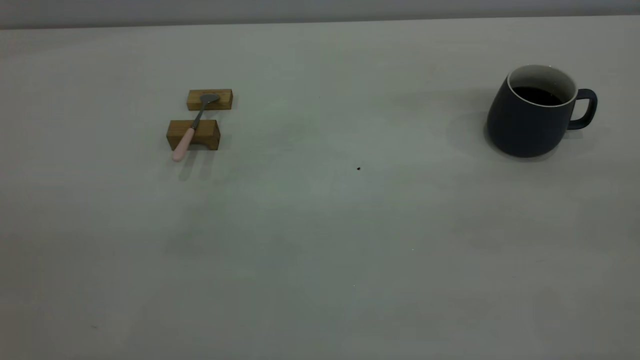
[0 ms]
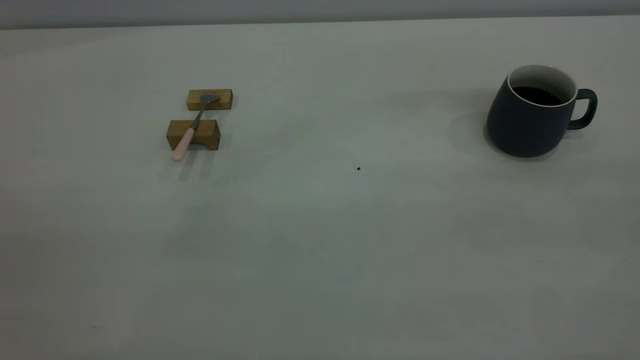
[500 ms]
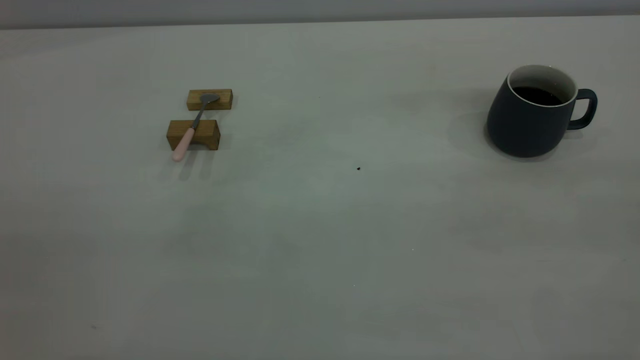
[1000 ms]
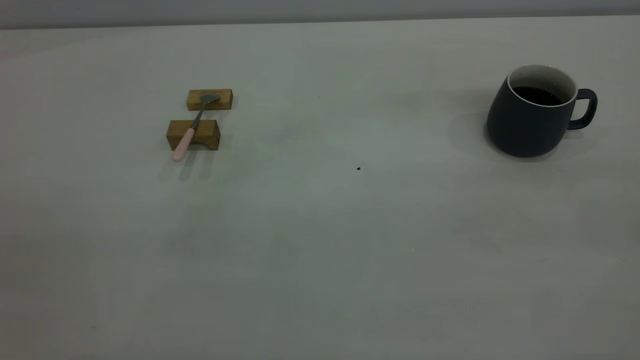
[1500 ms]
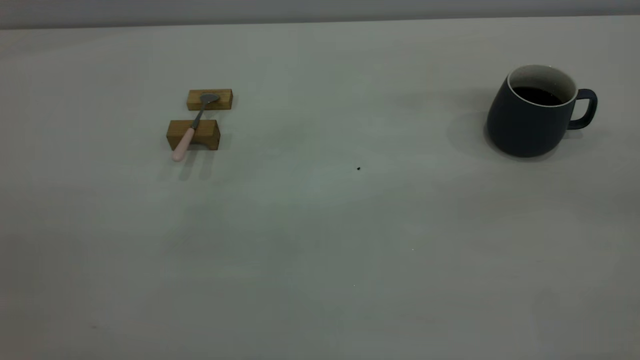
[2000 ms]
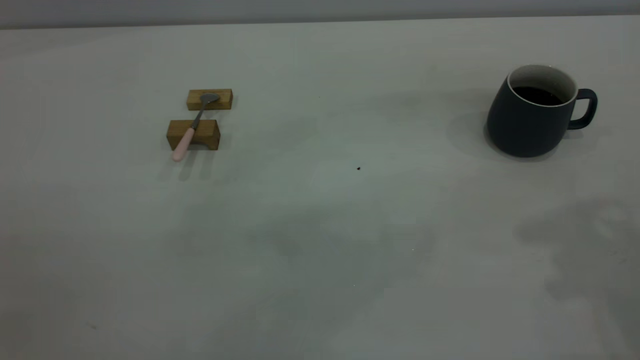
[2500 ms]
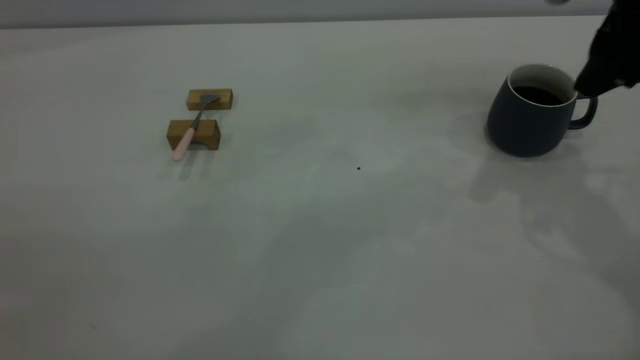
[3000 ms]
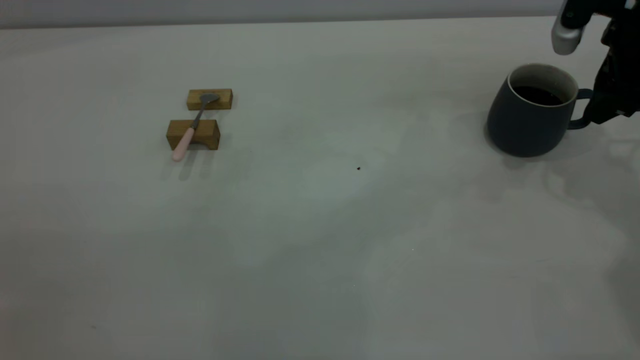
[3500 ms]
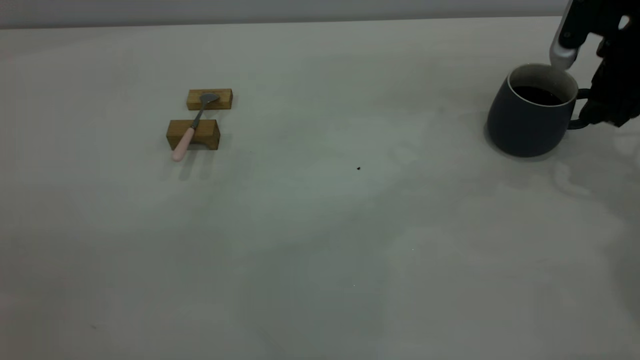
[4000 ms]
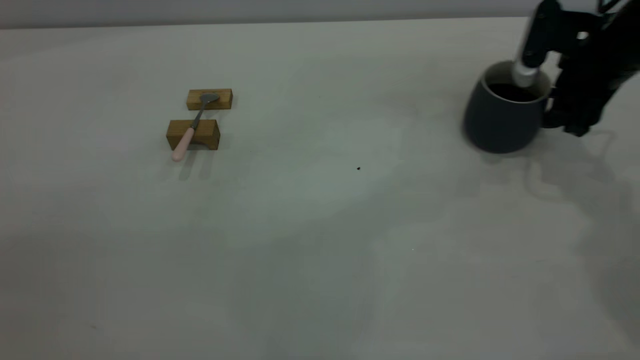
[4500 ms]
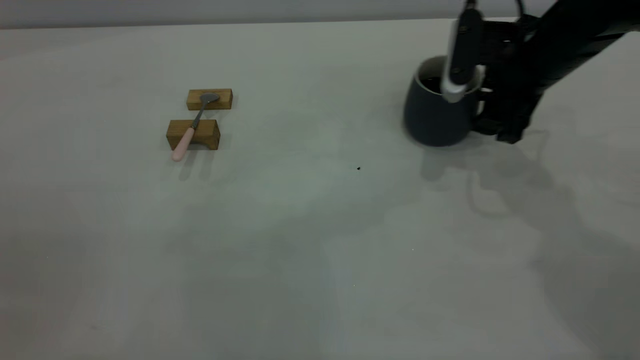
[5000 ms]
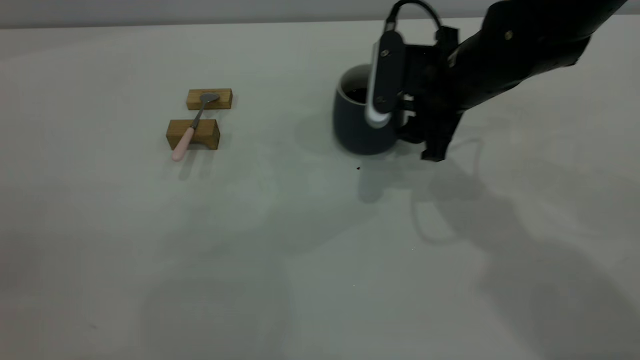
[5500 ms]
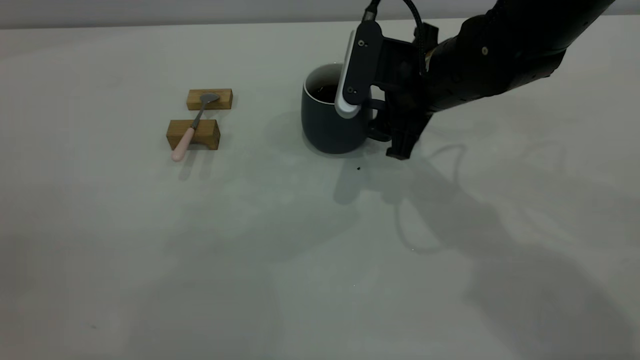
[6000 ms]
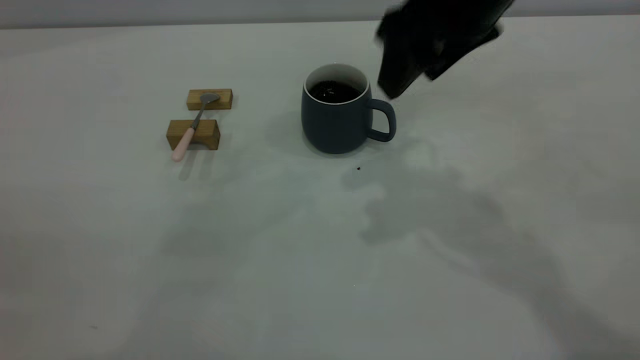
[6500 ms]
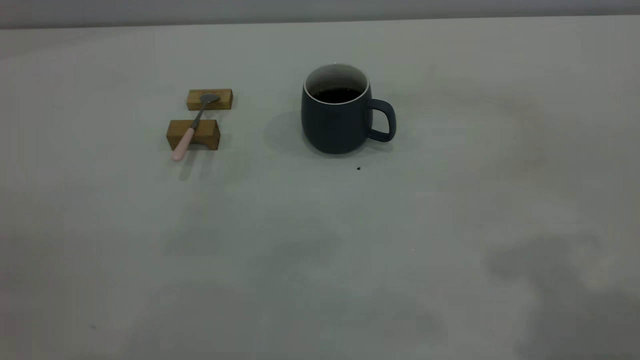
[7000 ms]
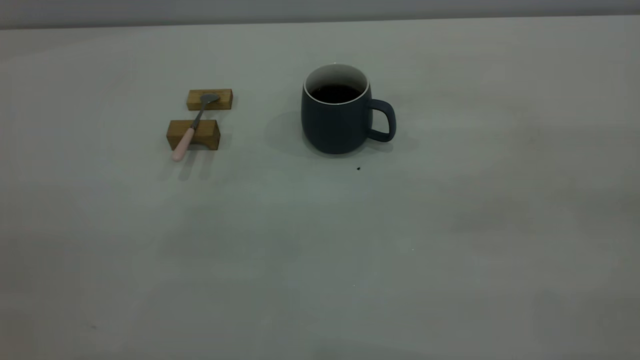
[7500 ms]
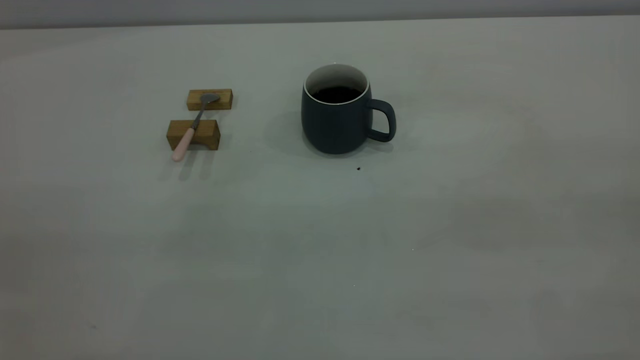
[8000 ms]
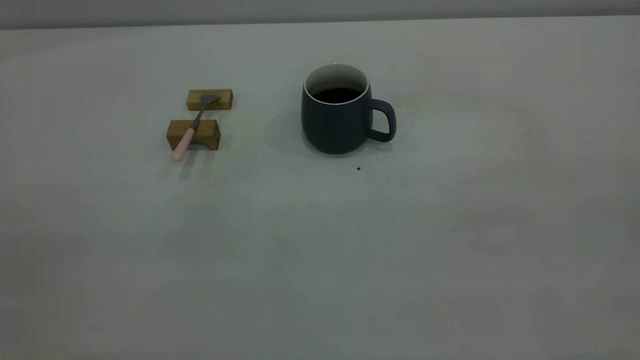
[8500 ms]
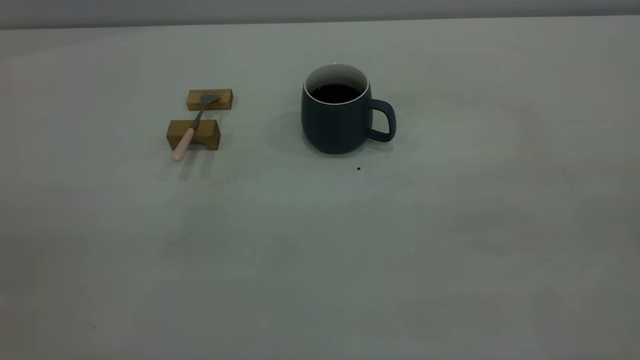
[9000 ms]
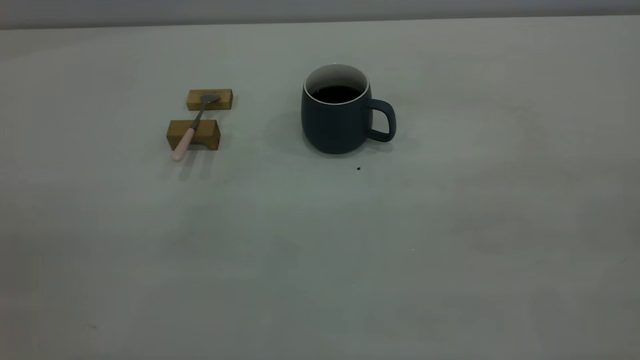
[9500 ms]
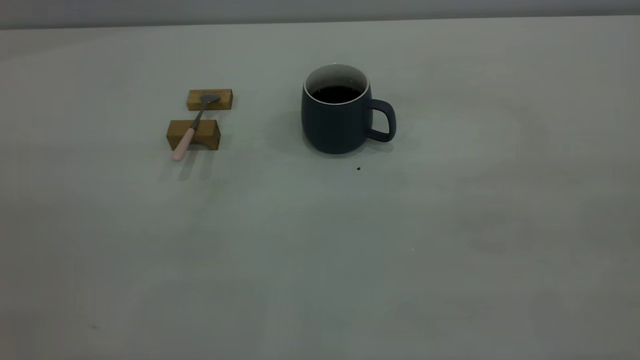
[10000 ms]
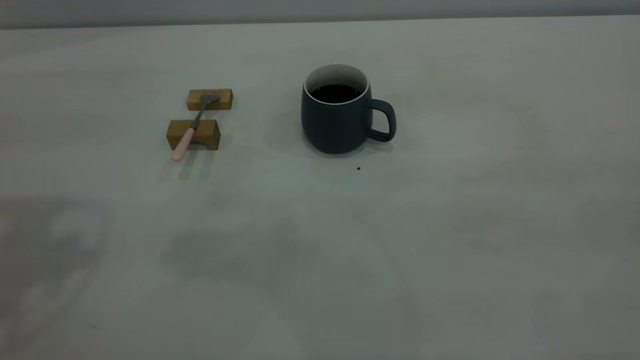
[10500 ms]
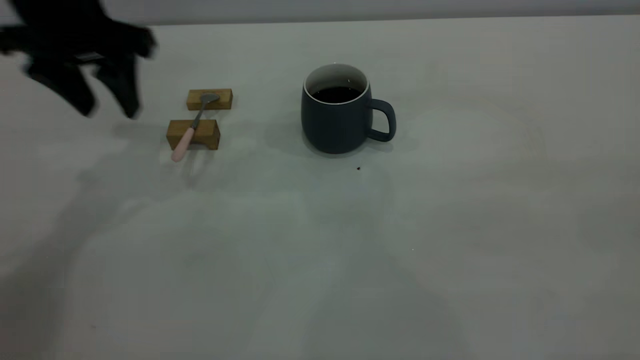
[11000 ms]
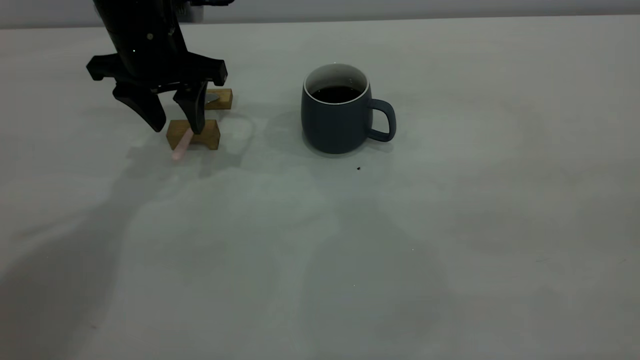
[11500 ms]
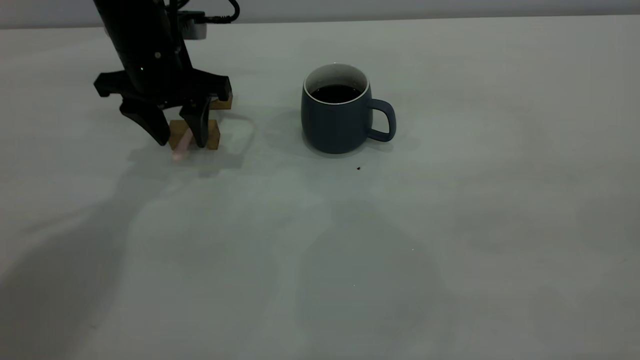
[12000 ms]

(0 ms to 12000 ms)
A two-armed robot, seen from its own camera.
Step, 0 ms - 6000 ms: Move the cup with coffee to the center of view.
2000 ms - 4000 ms: The right gripper shifts roughly 40 cm forward and downward.
4000 ms - 6000 ms: The right gripper goes approximately 20 cm to the left.
6000 ms - 8000 ms: The right gripper is displaced backward, upward and to the right by some 50 cm.
10000 ms - 12000 ms: The left gripper is displaced forward and downward by roughly 50 cm.

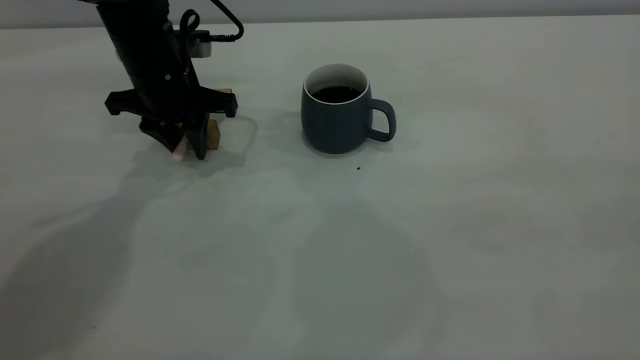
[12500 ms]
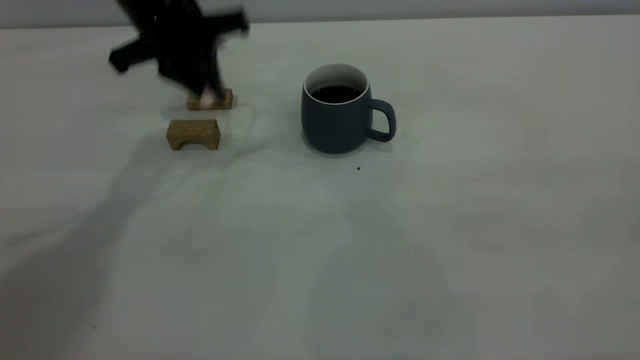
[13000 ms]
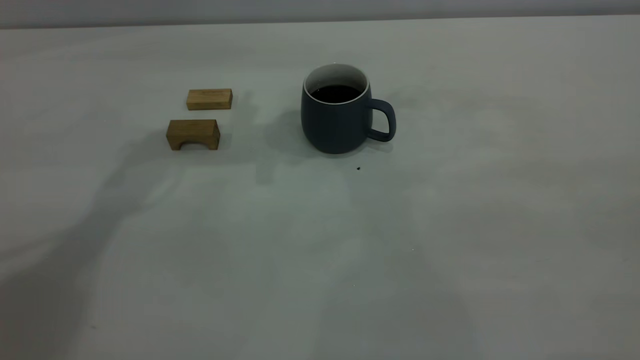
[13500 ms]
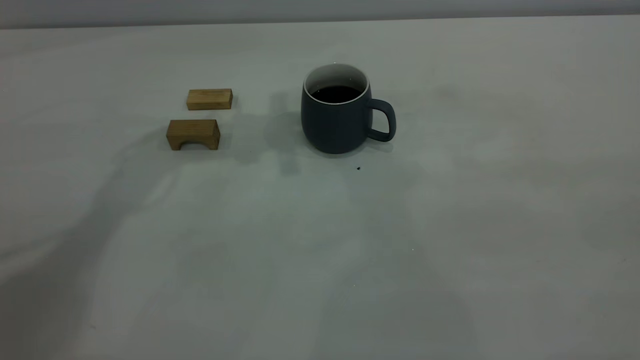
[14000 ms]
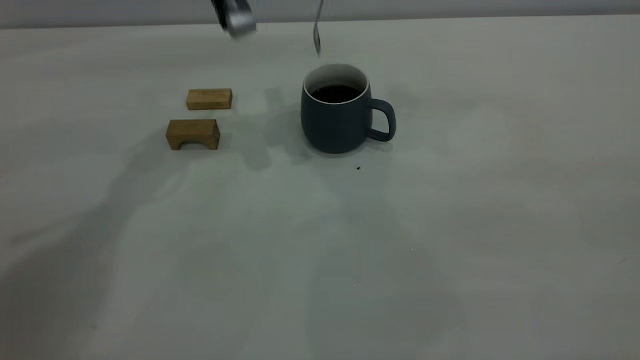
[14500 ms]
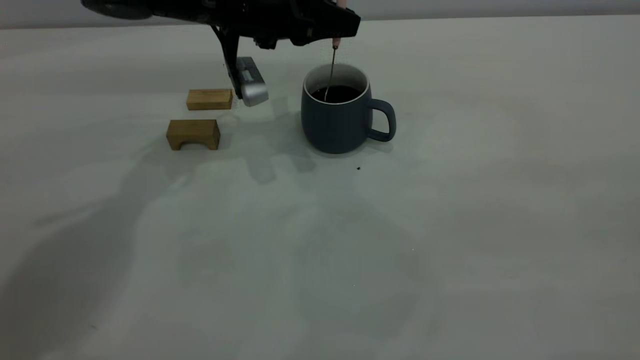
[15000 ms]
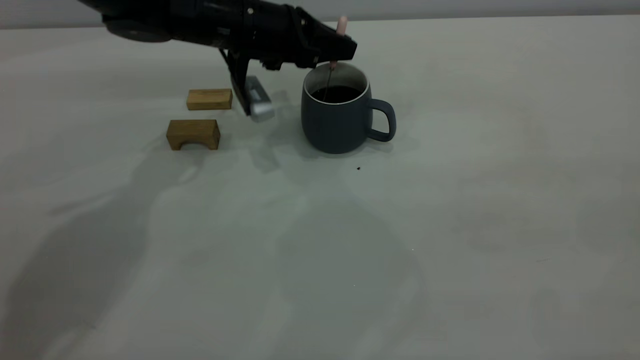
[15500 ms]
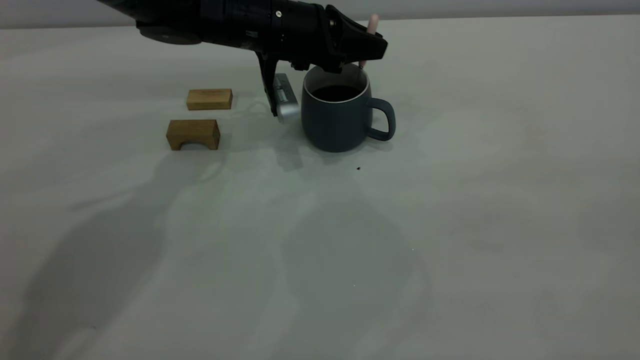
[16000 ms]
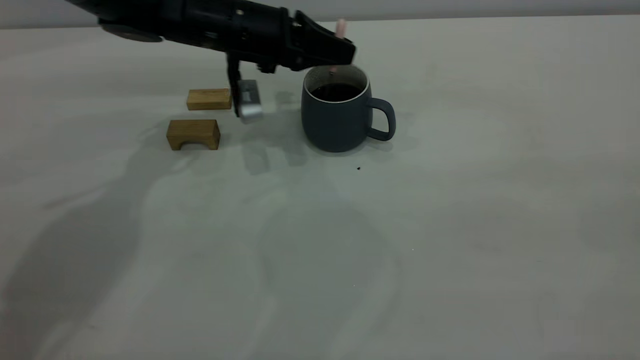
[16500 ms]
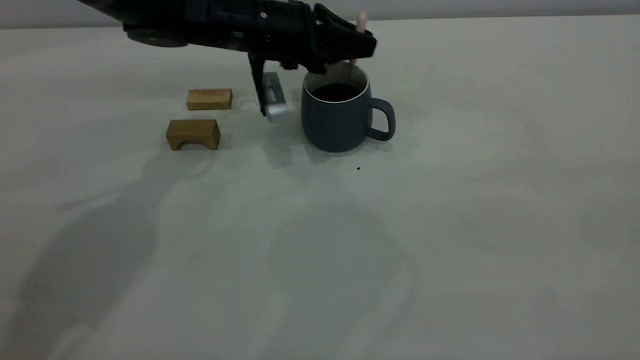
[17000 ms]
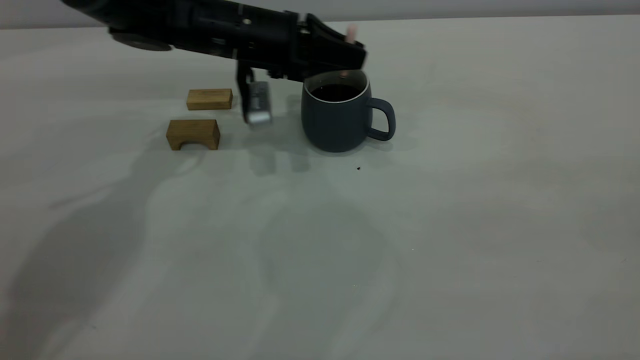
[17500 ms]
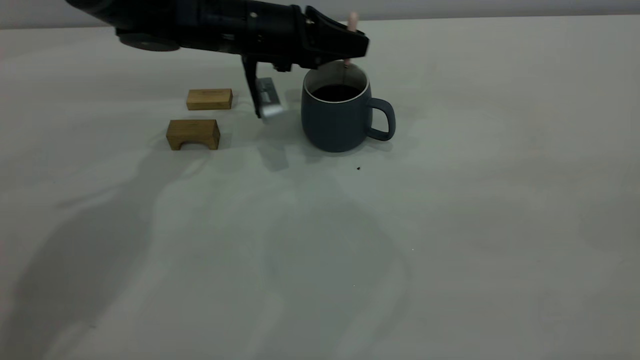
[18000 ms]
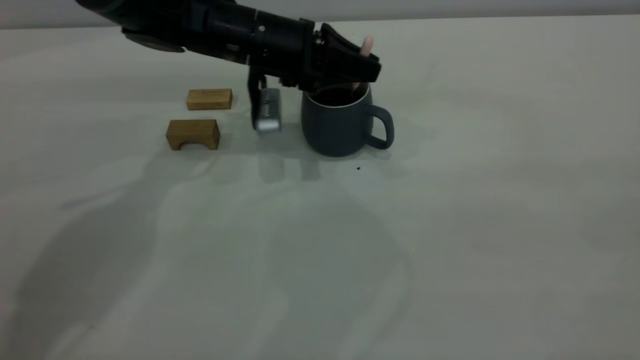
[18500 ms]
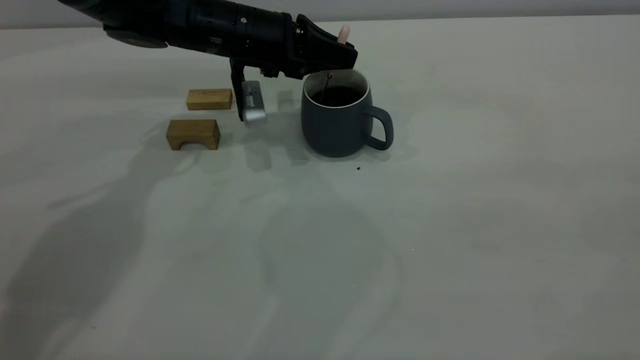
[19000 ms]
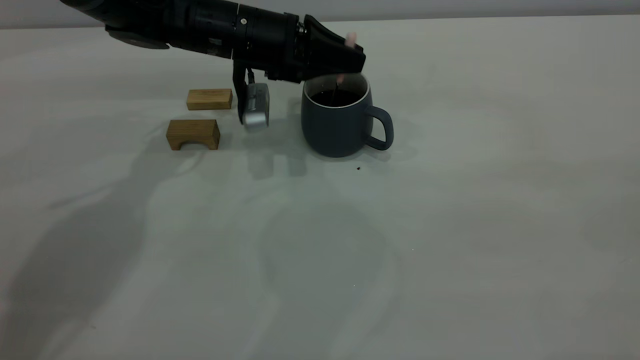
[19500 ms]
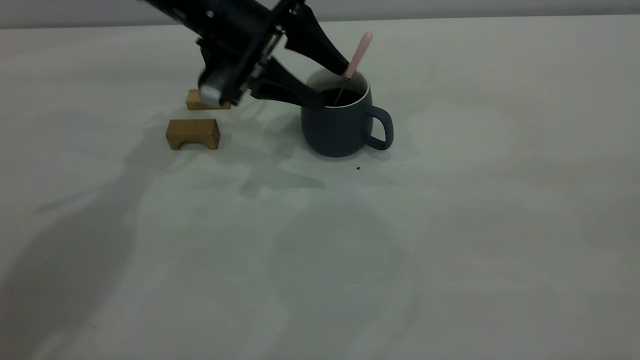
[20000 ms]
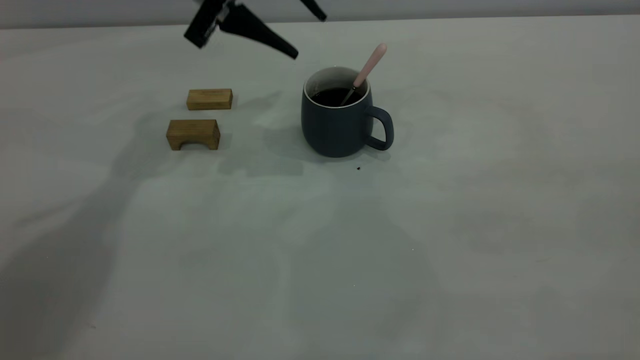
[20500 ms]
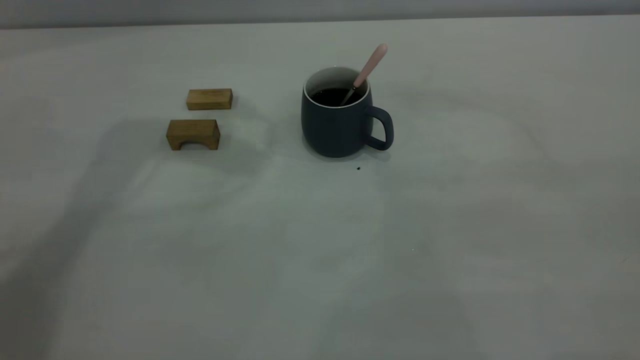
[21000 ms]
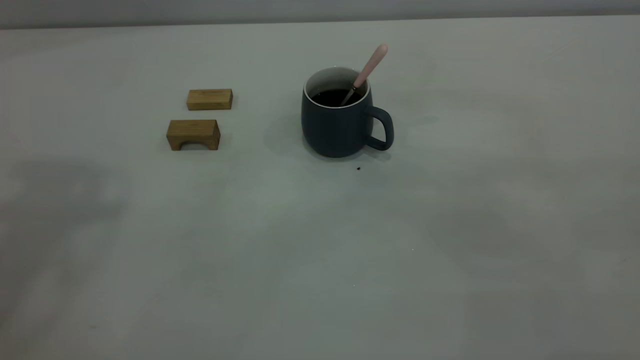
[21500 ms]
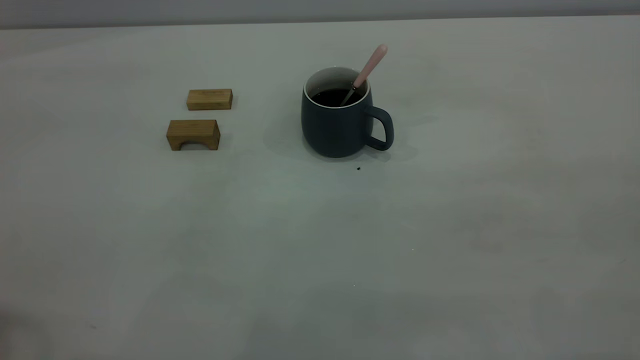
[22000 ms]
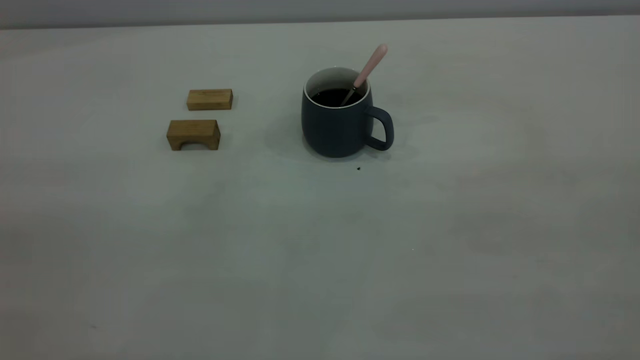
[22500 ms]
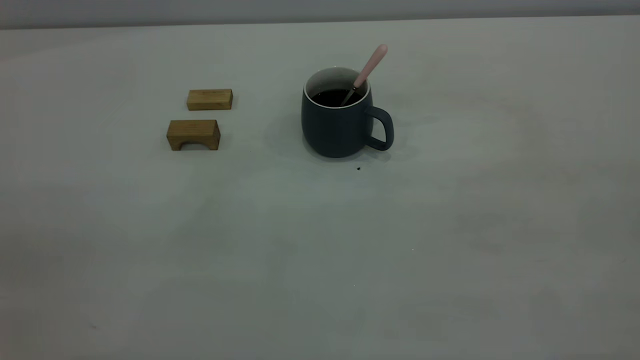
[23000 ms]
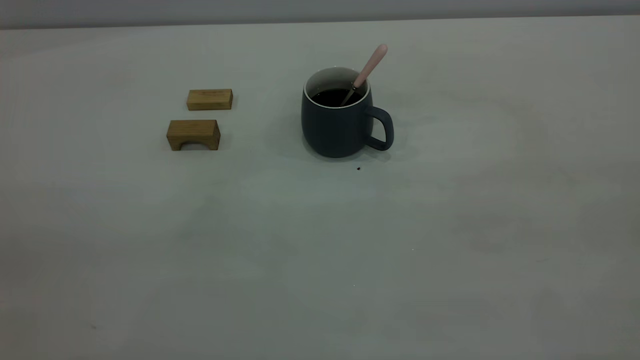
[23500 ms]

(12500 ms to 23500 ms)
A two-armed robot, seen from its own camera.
Step, 13500 ms - 20000 ms: Stir the coffee in the cup.
12500 ms - 14500 ms: The left gripper travels upward and to the right by roughly 15 cm.
14500 ms - 16000 ms: The left gripper goes approximately 10 cm downward.
16000 ms - 18000 ms: The grippers stay close to where they were, moving slightly.
18000 ms - 20000 ms: The left gripper ends up roughly 5 cm from where it was, and opens.
20000 ms - 21500 ms: The left gripper goes about 40 cm upward and backward.
